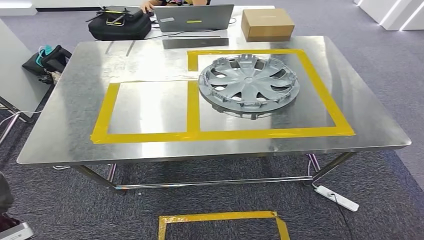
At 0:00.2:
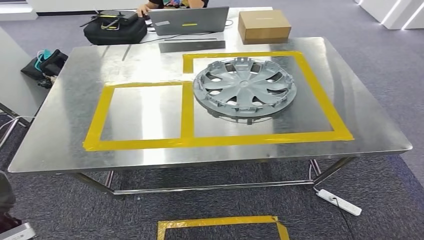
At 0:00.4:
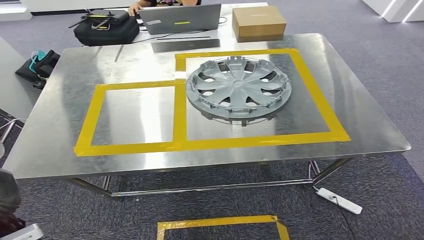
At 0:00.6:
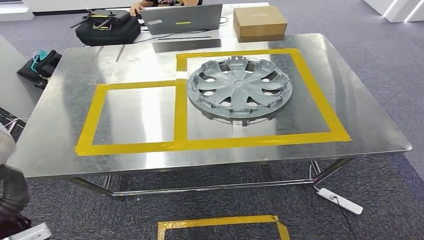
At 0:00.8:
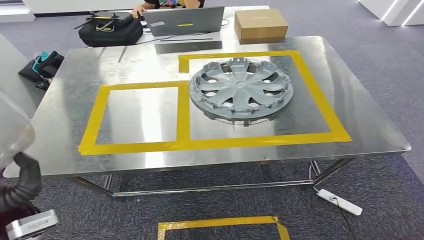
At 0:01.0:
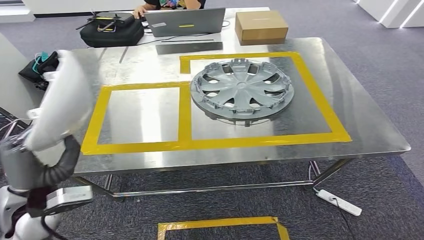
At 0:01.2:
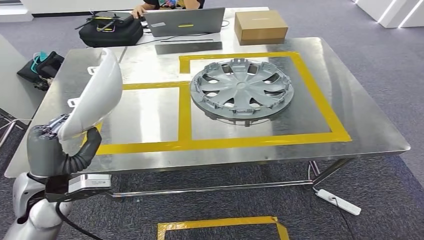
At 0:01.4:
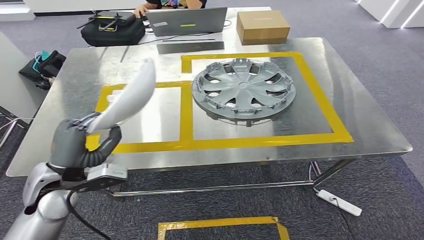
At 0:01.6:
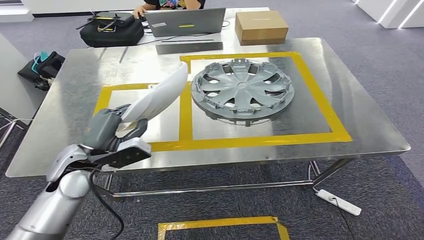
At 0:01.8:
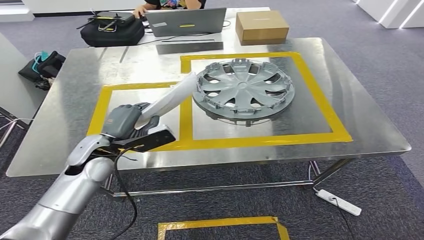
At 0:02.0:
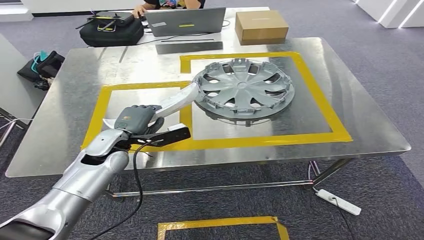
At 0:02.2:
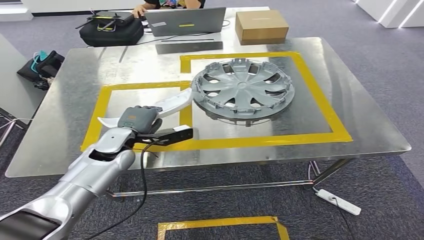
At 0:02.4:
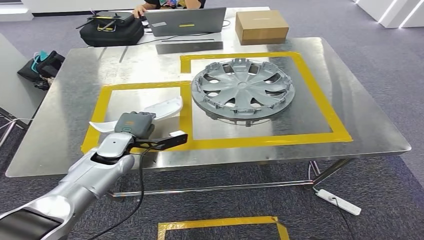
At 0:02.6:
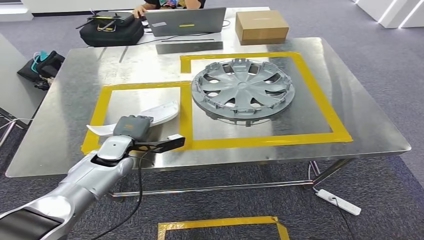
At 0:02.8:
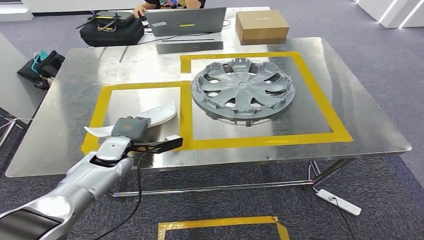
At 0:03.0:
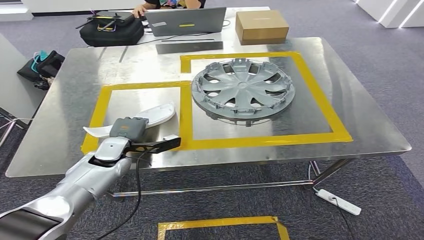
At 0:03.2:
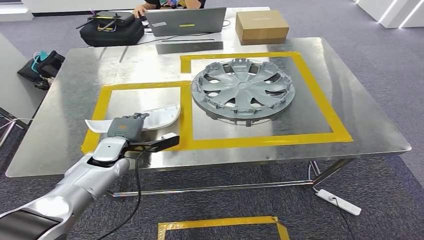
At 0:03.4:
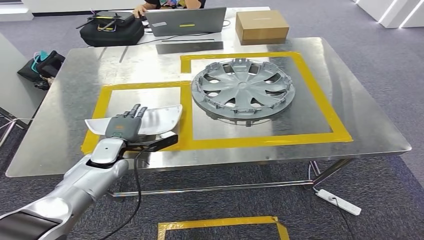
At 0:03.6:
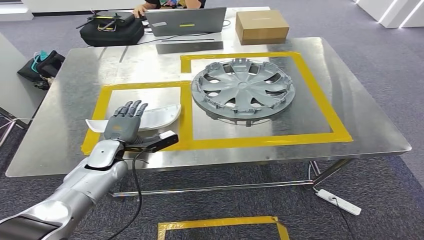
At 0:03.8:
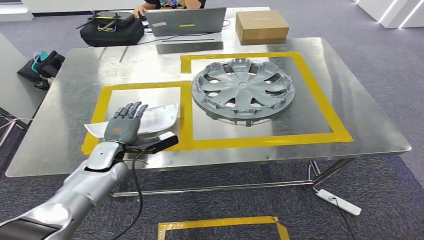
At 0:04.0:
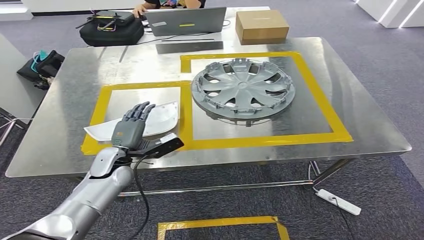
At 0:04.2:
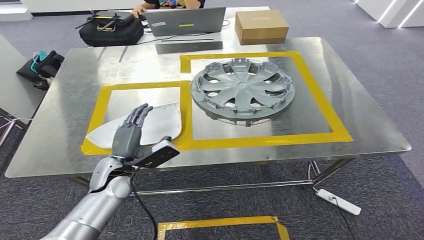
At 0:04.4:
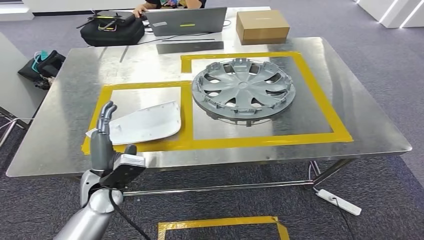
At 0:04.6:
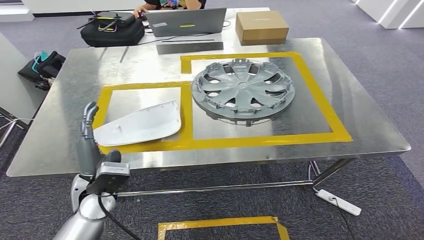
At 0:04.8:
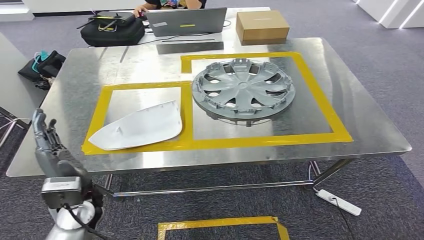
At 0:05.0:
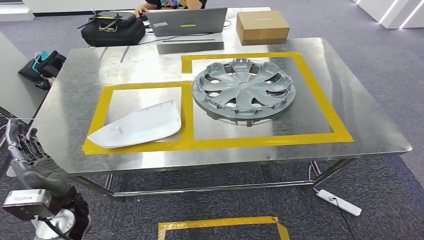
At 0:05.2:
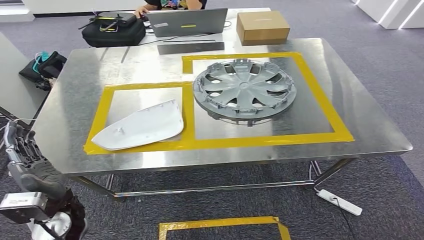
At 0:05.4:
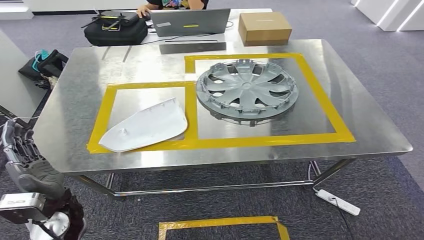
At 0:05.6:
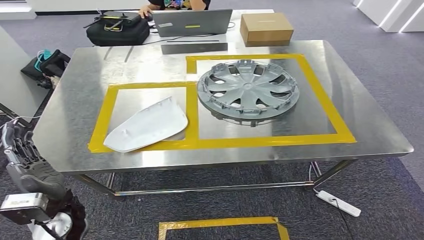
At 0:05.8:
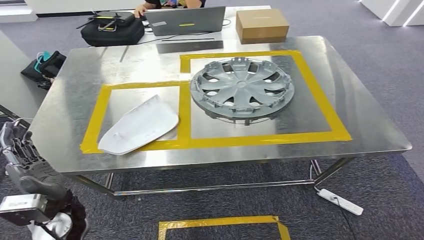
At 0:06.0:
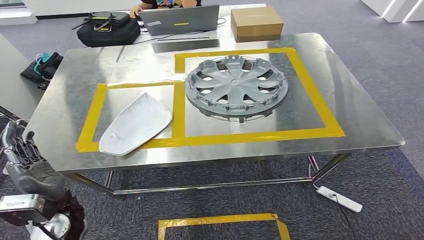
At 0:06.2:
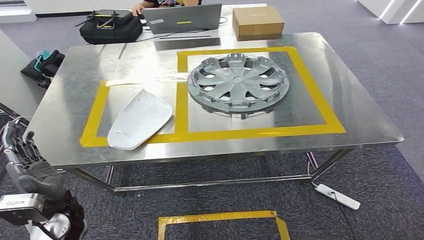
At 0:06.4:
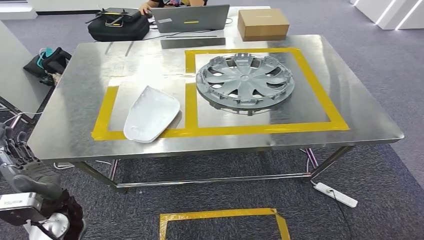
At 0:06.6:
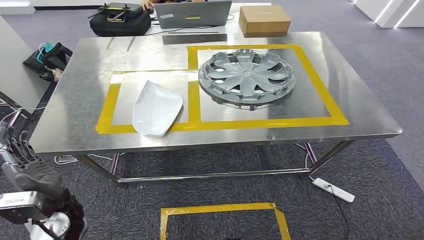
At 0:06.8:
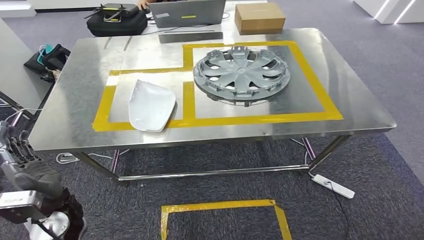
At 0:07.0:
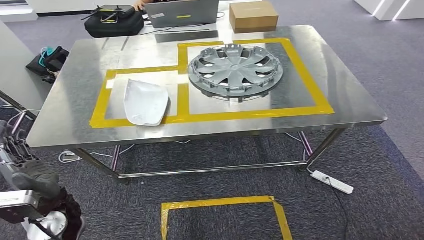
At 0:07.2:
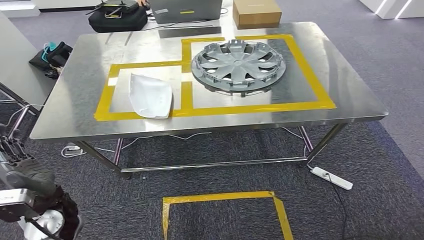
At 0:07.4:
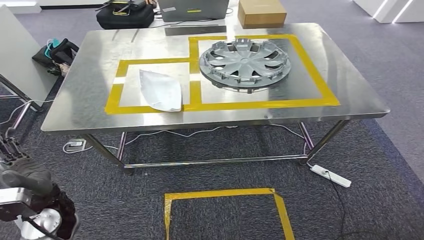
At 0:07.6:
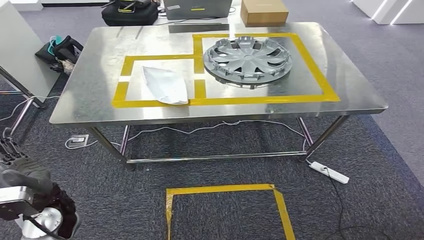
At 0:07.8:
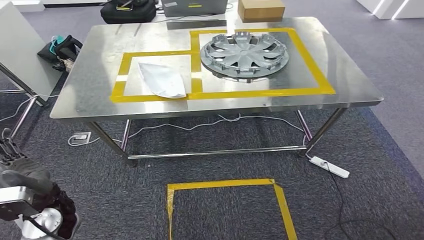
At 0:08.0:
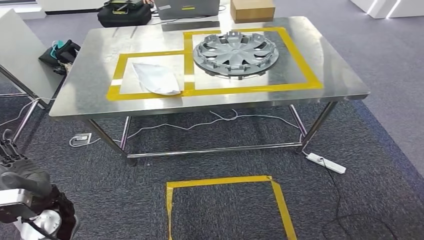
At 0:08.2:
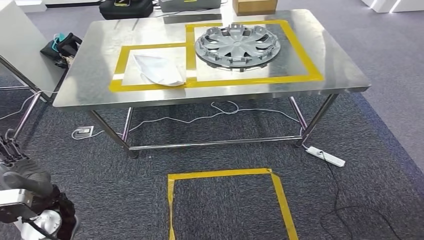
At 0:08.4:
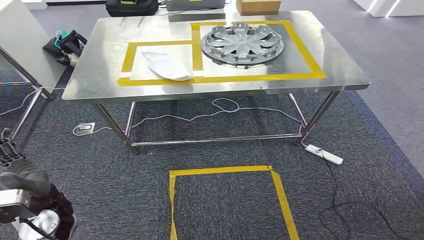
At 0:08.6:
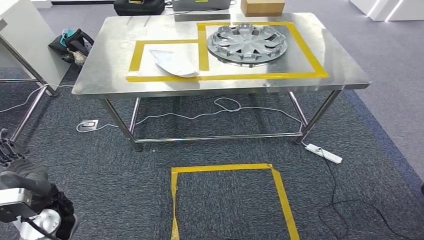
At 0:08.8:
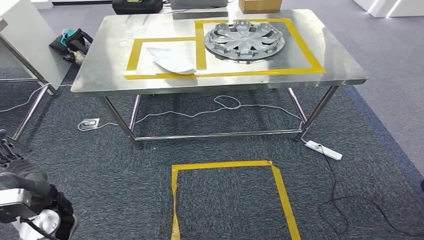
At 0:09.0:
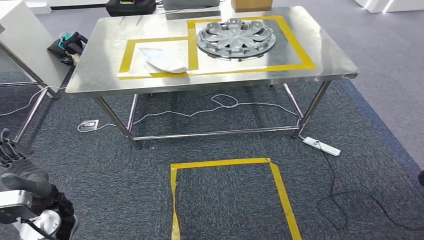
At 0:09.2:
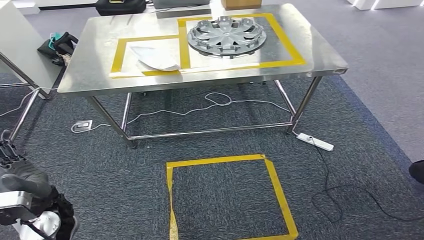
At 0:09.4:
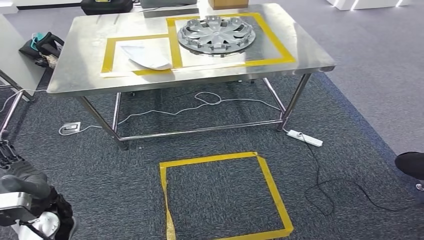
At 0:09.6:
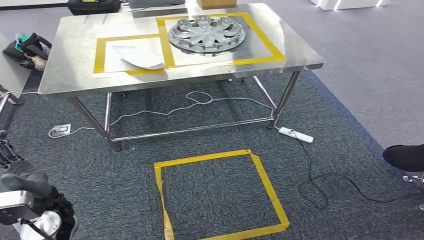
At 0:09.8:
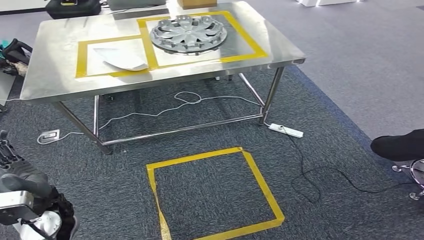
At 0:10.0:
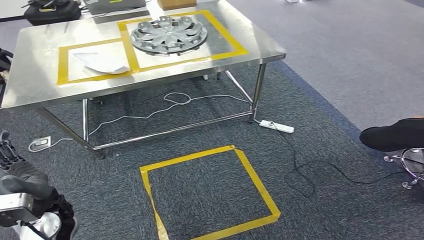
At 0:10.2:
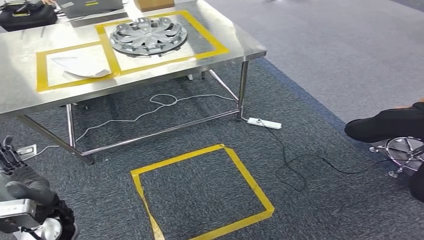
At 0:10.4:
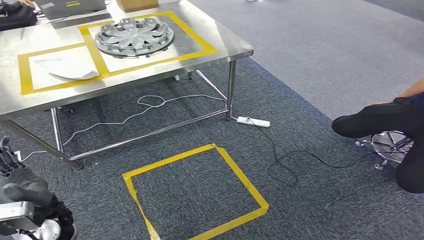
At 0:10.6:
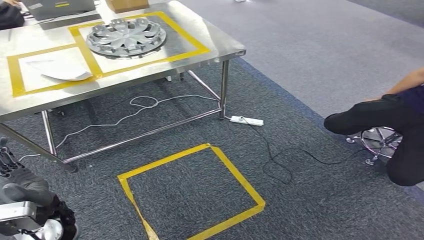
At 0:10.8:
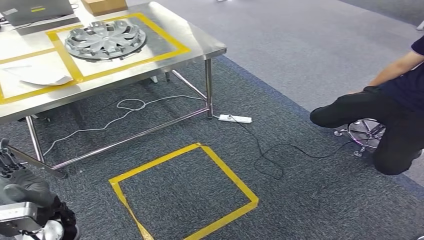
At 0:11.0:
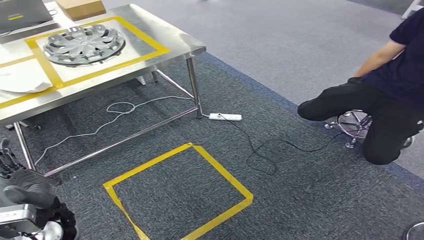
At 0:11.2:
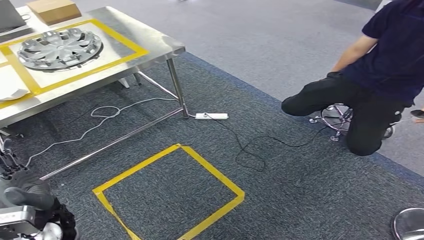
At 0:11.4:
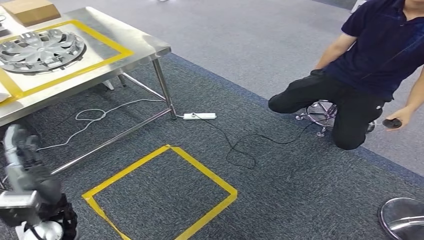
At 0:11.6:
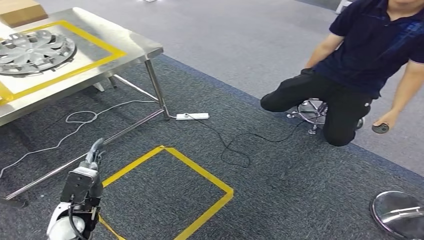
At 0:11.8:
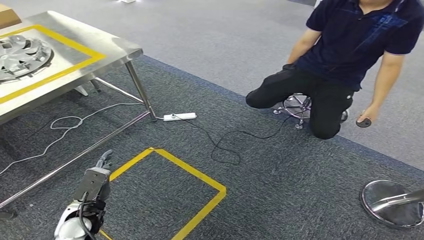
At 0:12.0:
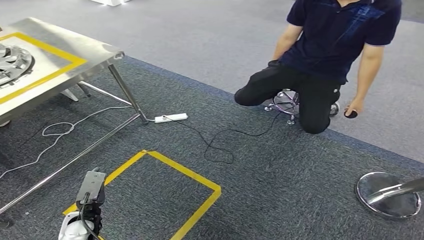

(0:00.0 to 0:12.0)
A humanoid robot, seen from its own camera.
Step, 0:00.0 - 0:05.4: Insert the small parts into the corresponding holes on the workbench.
0:01.6 - 0:03.0: The left hand travels downward and forward by roughly 10 cm.
0:03.0 - 0:04.4: The left hand is displaced backward by about 10 cm.

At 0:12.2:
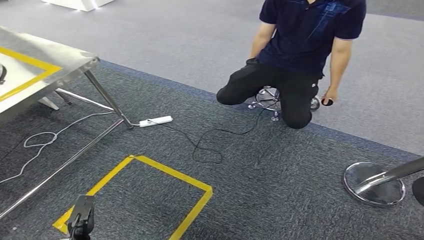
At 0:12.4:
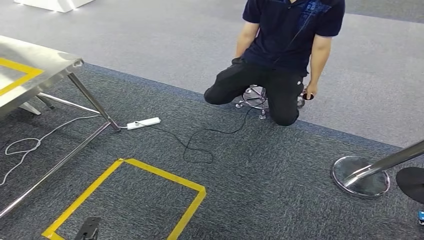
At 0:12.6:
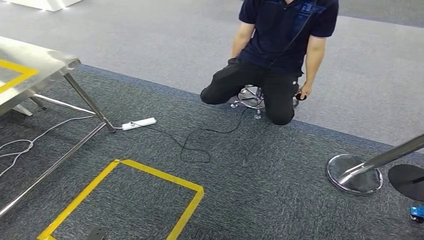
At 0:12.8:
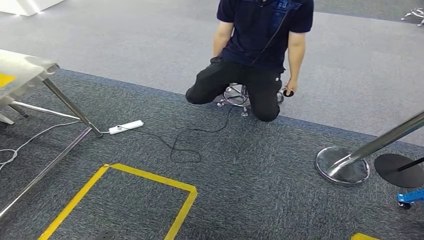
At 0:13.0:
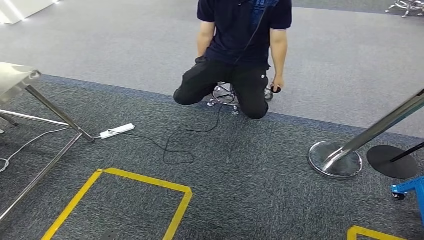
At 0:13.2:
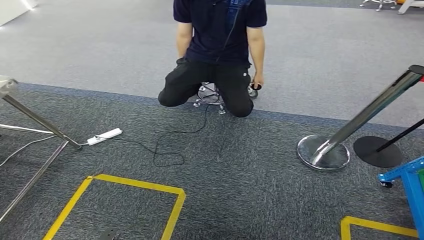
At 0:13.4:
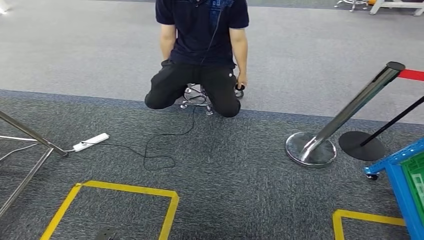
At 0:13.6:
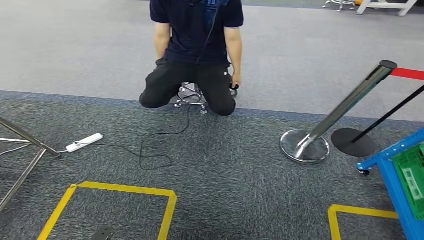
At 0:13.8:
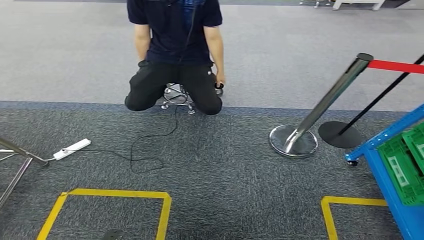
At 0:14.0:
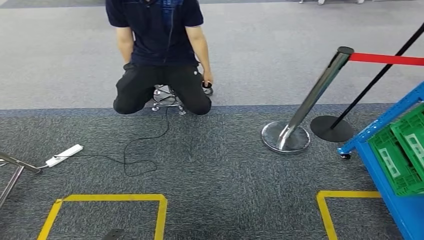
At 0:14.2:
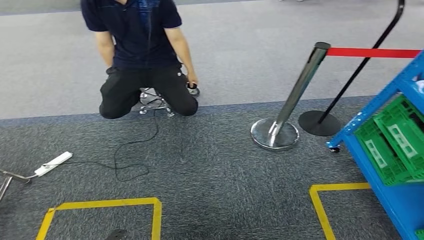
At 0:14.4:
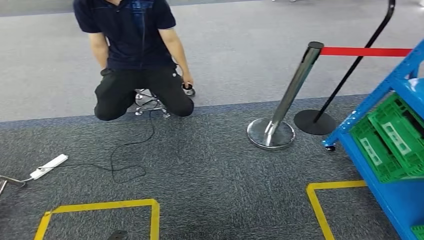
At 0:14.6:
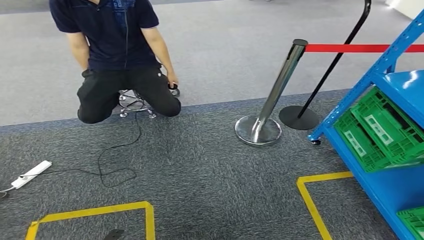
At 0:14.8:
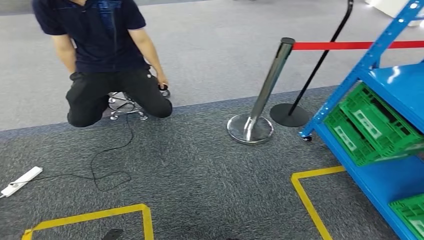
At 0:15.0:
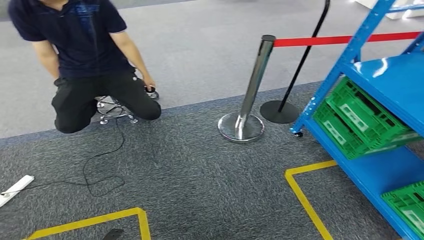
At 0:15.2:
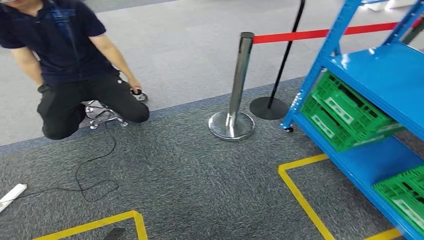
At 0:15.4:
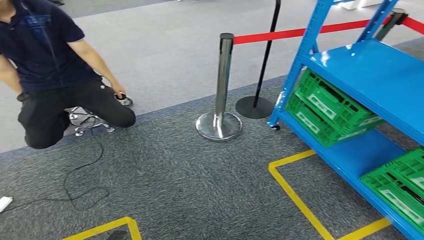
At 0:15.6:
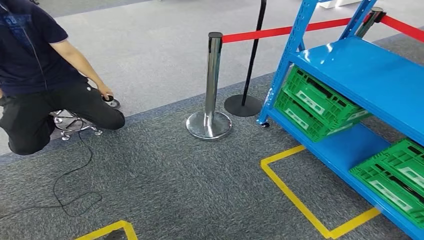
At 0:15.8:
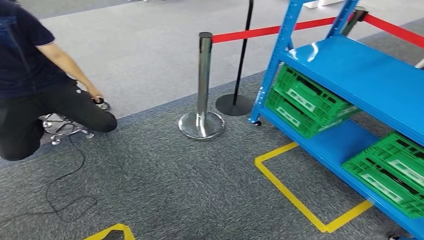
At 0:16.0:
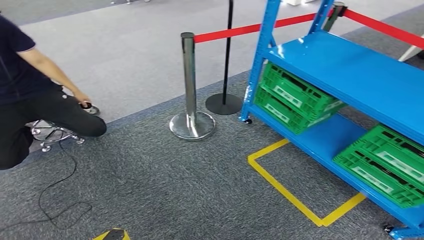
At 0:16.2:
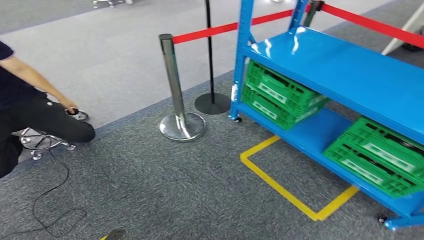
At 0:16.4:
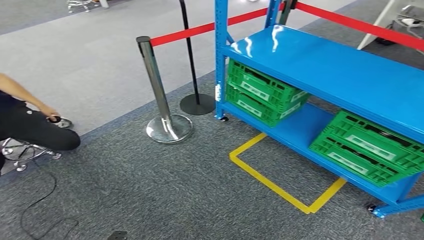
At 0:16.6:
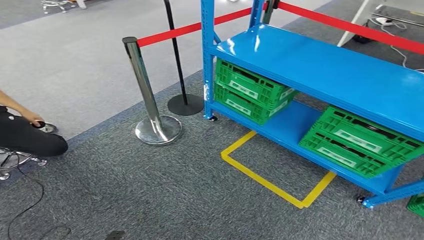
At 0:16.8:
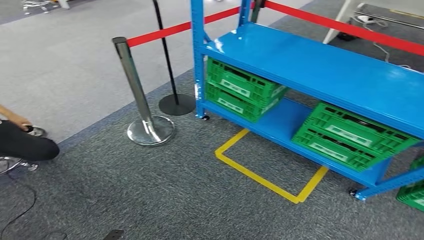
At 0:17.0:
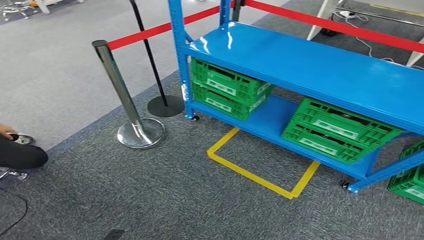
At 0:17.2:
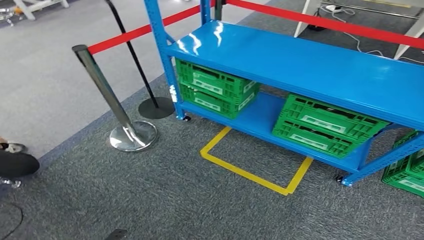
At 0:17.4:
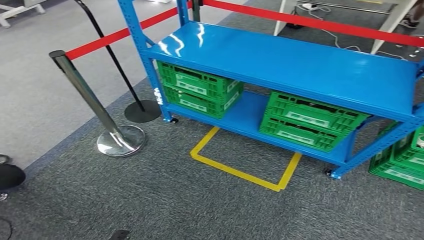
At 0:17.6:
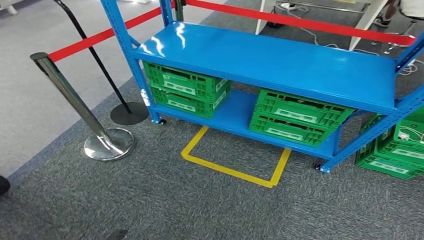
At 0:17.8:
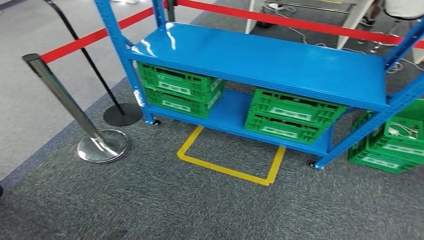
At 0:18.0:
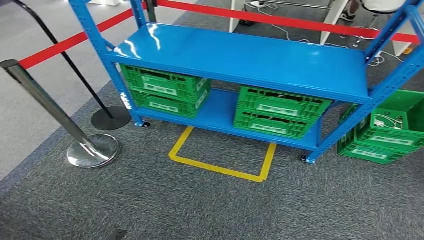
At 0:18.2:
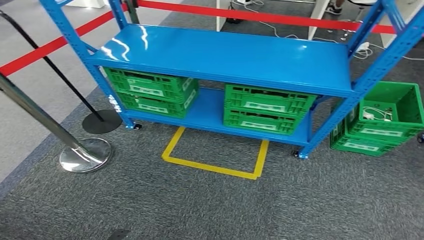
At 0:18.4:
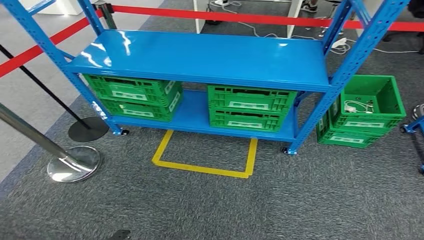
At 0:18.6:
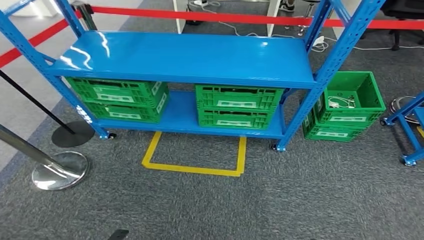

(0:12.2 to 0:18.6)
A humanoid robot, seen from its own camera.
Step, 0:12.2 - 0:18.6: Move to the initial position of the workbench.
